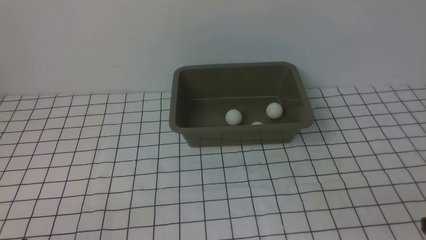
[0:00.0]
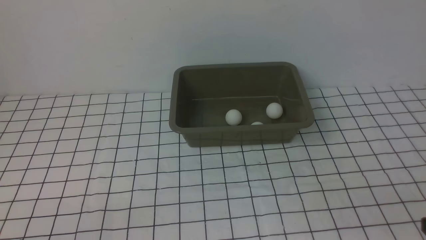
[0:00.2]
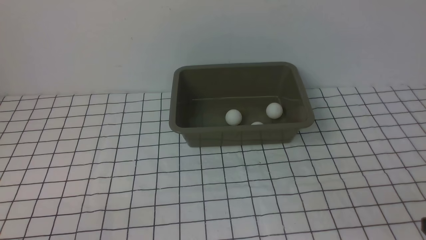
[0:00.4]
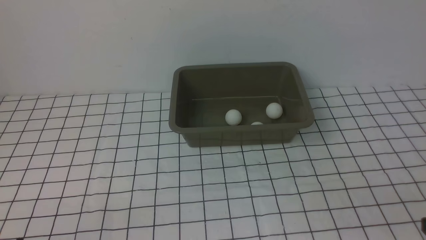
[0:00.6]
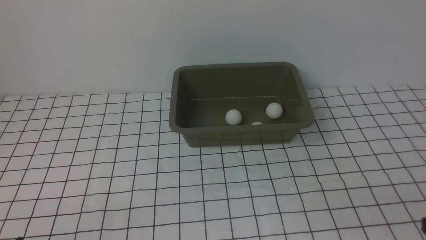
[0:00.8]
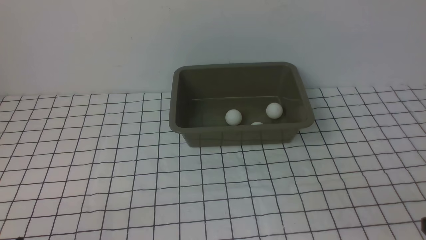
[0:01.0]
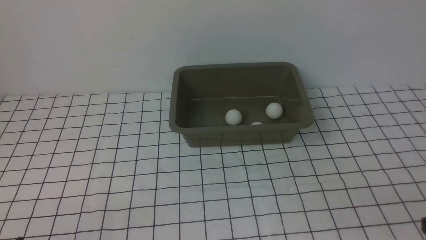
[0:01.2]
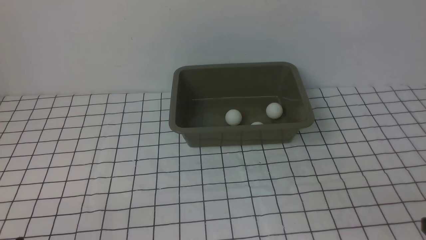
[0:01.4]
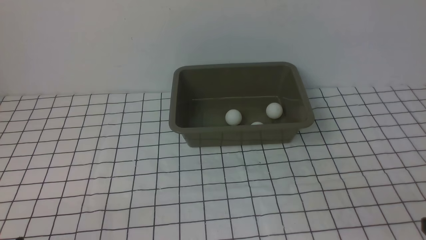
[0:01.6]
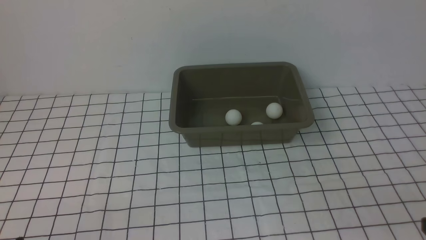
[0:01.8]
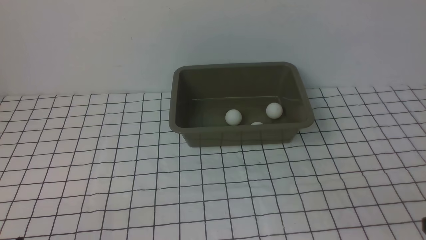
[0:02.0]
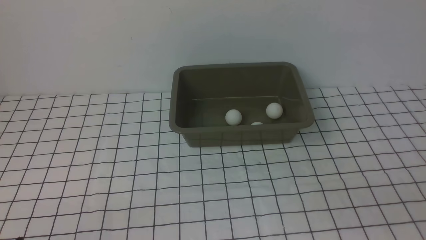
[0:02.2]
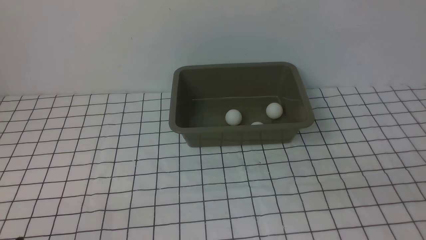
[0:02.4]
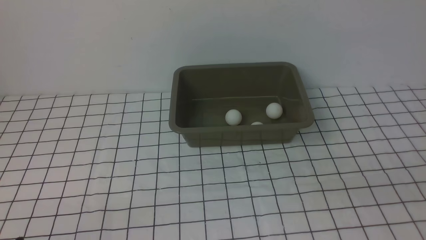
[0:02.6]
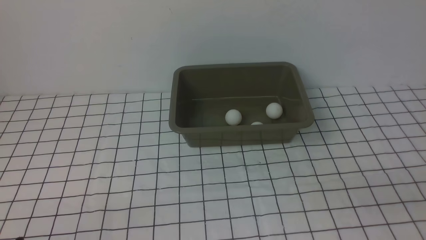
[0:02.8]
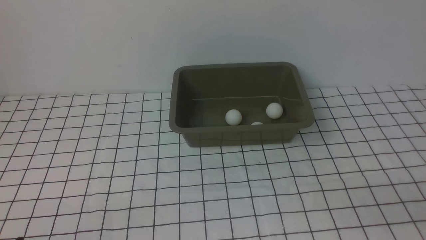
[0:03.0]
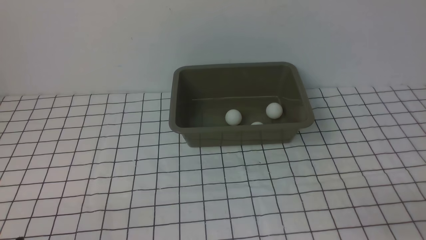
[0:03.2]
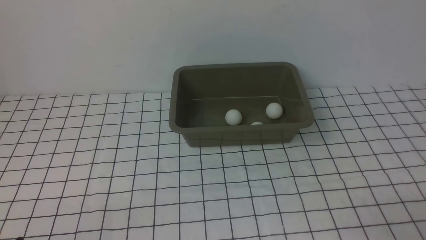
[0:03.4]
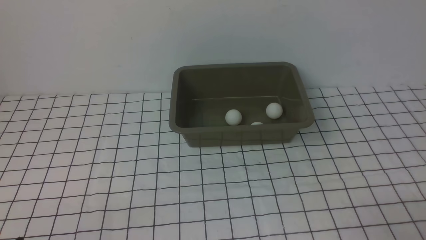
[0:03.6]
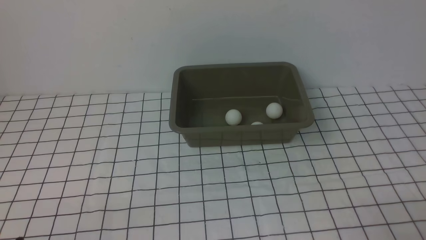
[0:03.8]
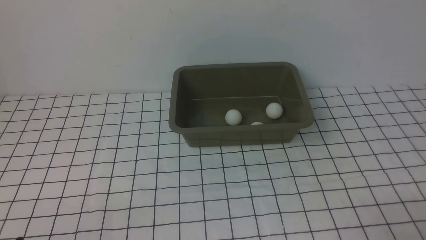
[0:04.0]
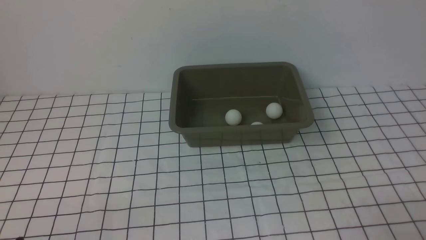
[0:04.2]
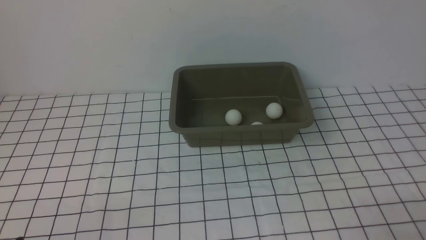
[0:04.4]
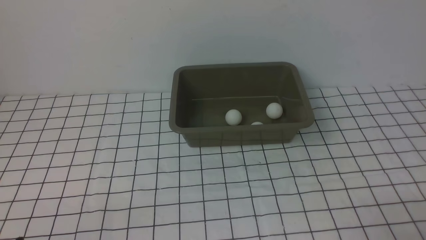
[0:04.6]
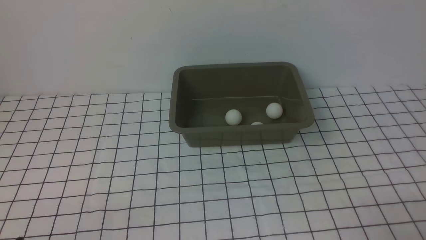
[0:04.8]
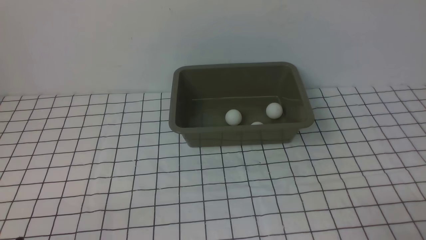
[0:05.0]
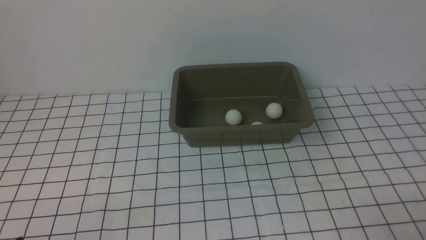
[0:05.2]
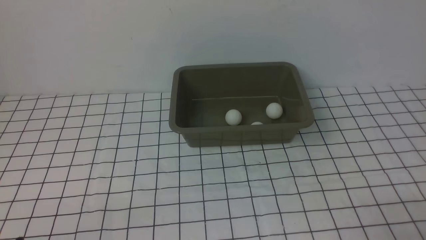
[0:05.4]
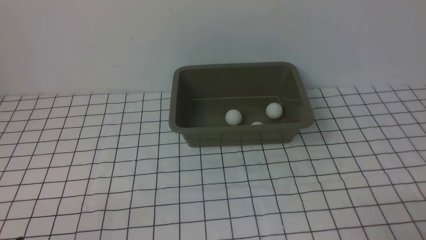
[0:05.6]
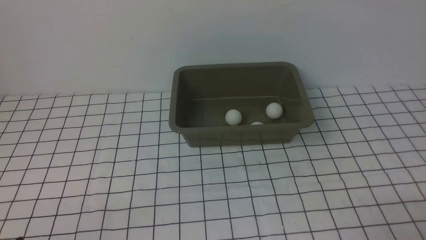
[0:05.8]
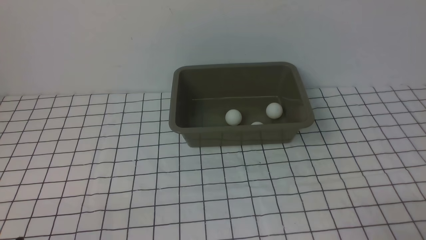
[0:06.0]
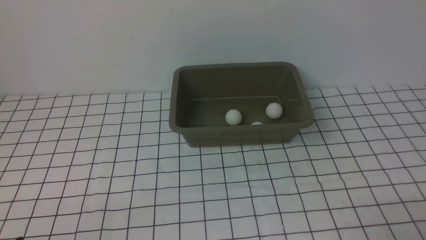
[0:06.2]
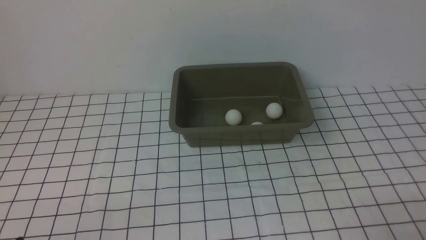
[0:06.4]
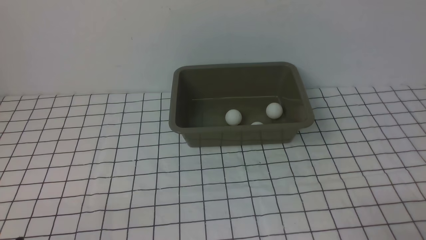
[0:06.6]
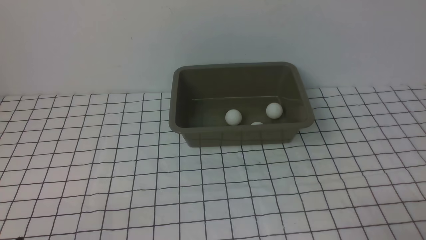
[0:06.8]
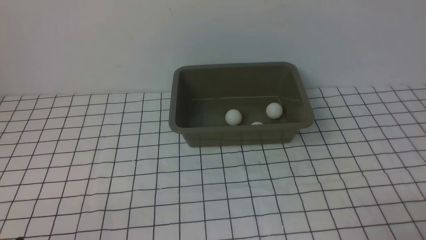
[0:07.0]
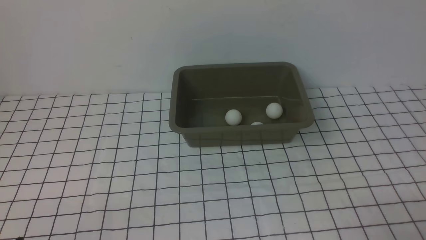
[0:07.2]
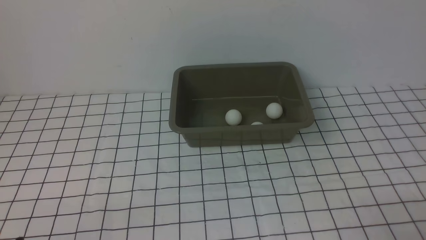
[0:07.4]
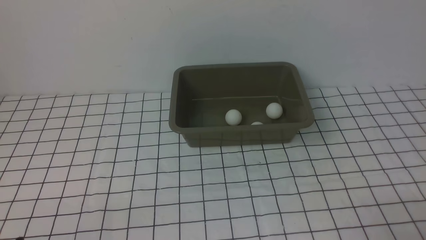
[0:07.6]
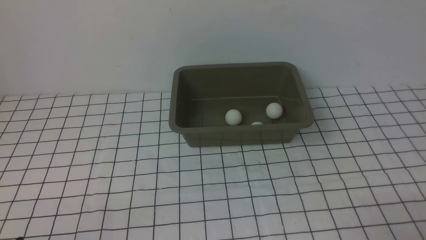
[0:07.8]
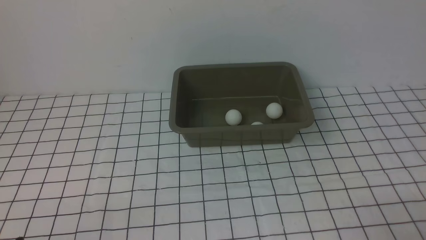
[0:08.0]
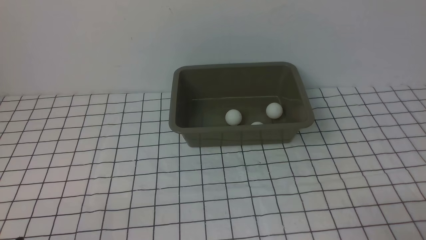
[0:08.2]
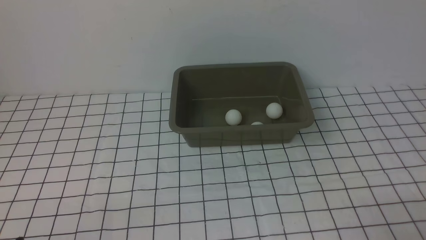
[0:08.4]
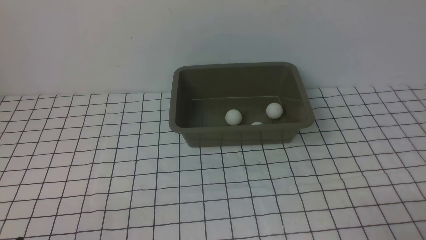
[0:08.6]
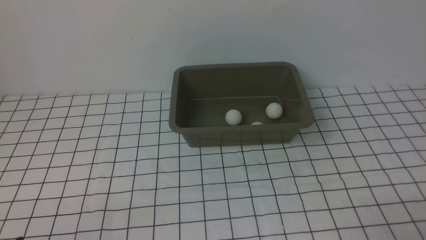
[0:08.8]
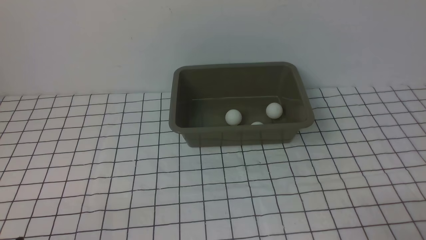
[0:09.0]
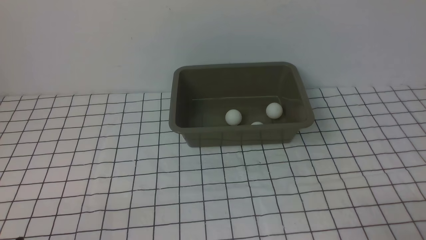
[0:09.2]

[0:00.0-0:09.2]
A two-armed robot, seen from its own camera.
0:00.0 to 0:01.6: Neither gripper changes place.
0:04.6 to 0:09.2: Both grippers stay about where they are.

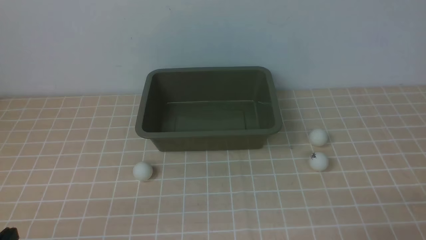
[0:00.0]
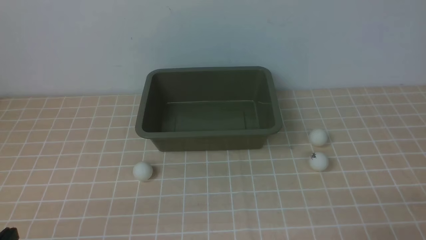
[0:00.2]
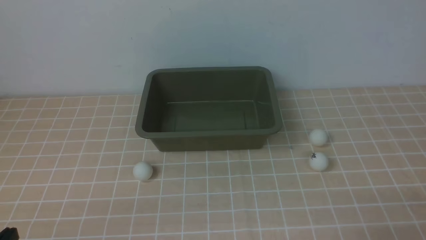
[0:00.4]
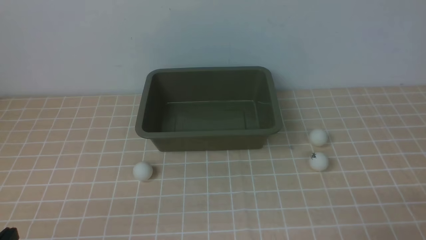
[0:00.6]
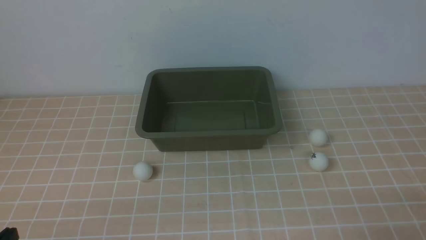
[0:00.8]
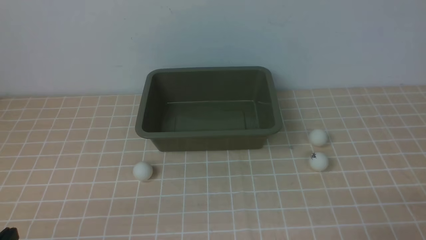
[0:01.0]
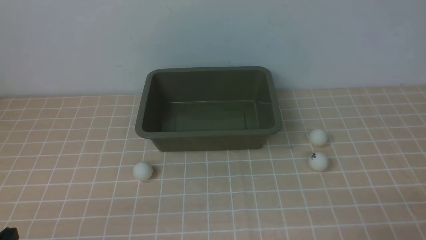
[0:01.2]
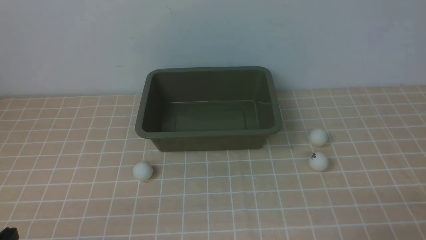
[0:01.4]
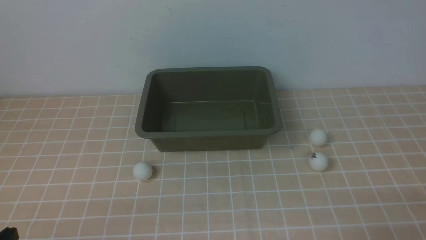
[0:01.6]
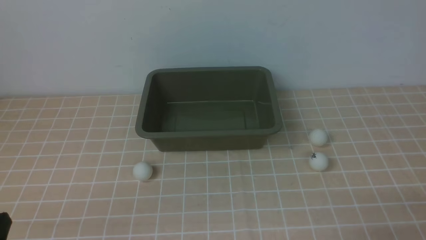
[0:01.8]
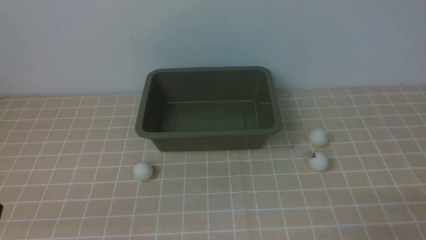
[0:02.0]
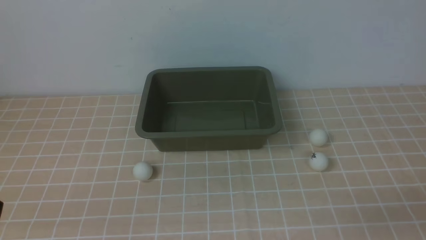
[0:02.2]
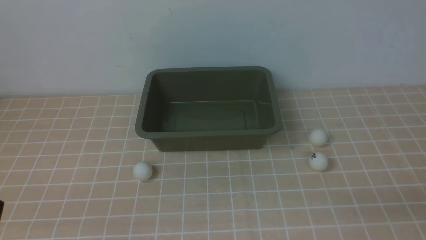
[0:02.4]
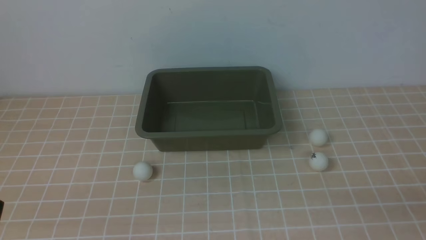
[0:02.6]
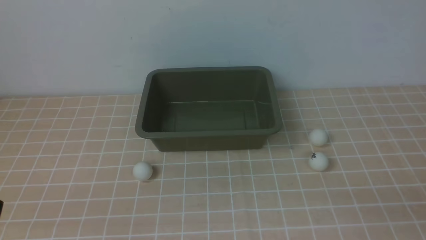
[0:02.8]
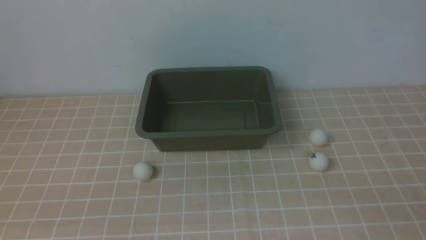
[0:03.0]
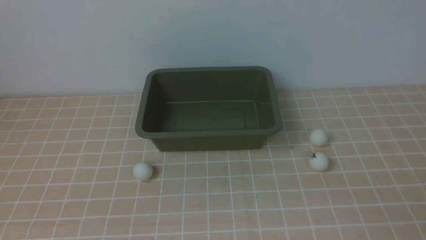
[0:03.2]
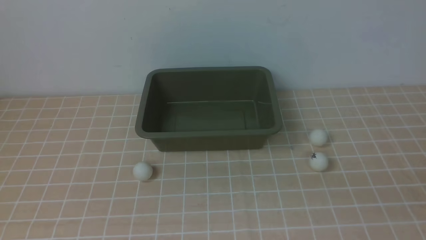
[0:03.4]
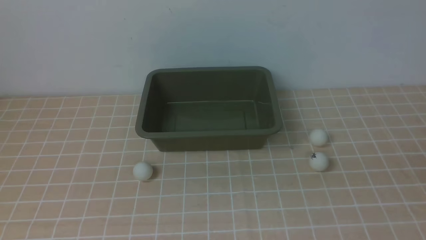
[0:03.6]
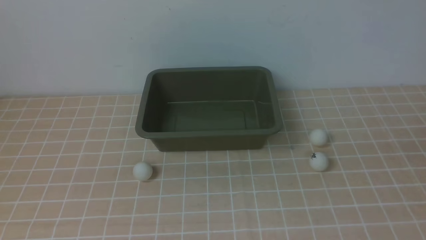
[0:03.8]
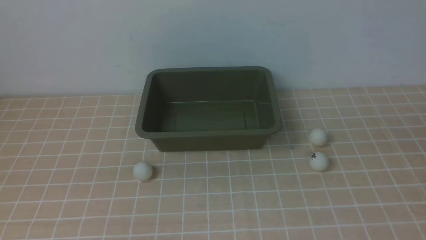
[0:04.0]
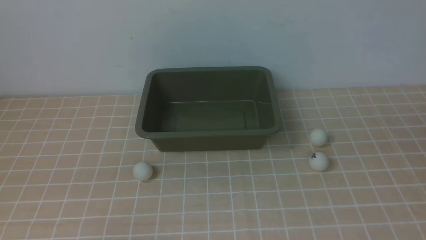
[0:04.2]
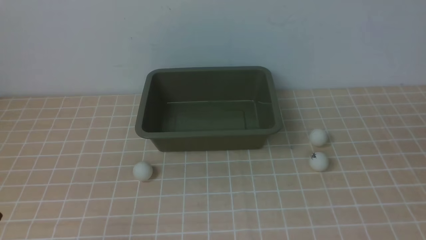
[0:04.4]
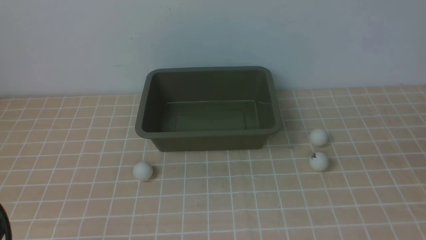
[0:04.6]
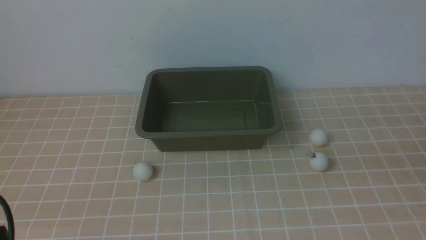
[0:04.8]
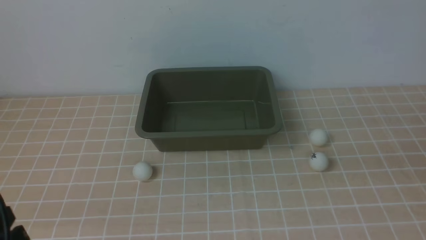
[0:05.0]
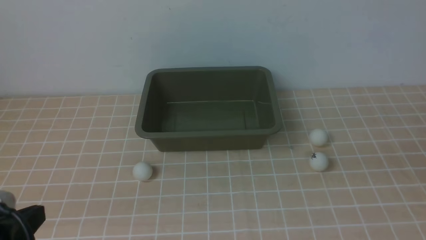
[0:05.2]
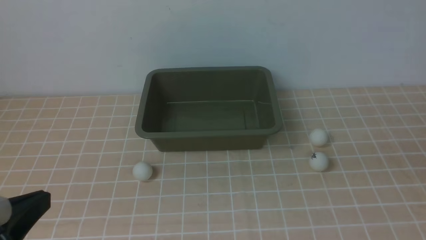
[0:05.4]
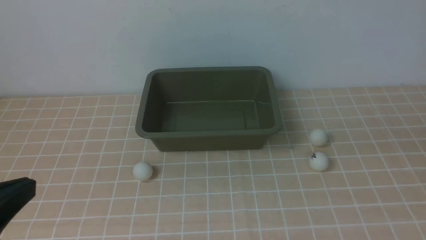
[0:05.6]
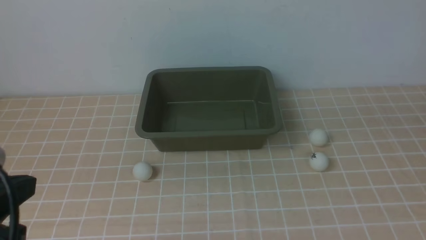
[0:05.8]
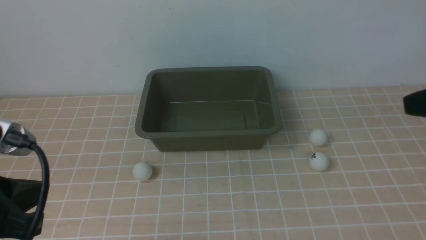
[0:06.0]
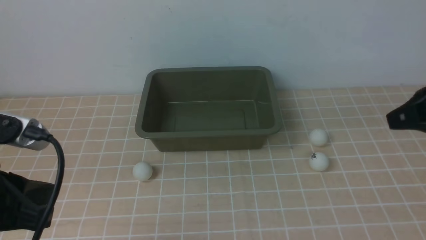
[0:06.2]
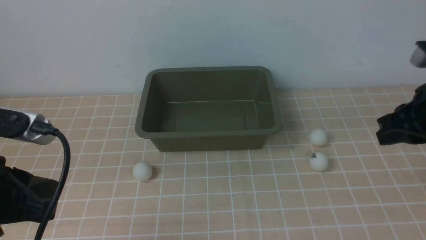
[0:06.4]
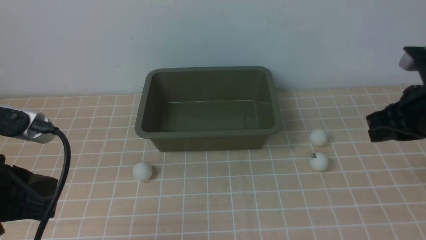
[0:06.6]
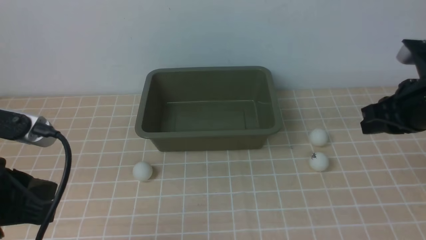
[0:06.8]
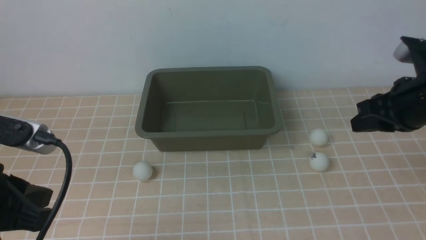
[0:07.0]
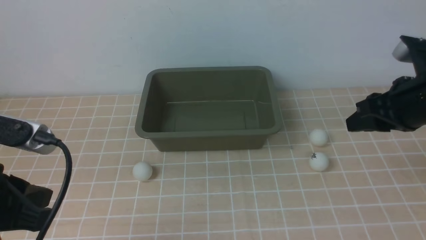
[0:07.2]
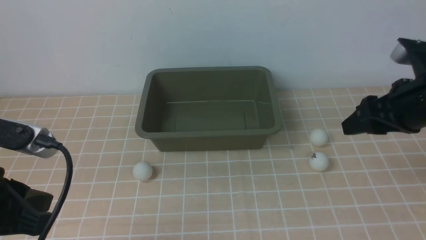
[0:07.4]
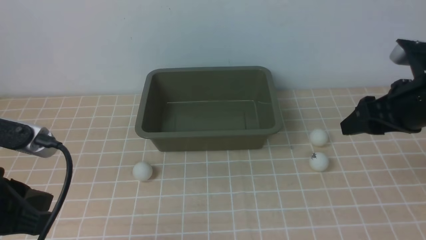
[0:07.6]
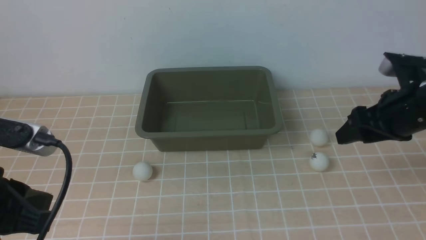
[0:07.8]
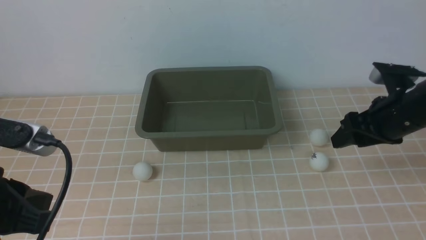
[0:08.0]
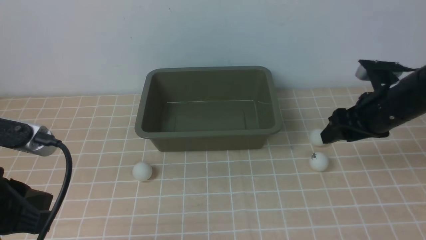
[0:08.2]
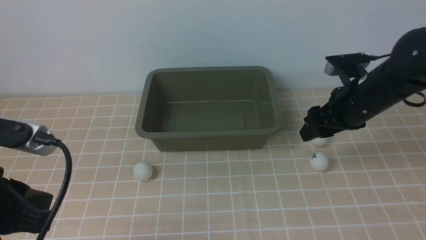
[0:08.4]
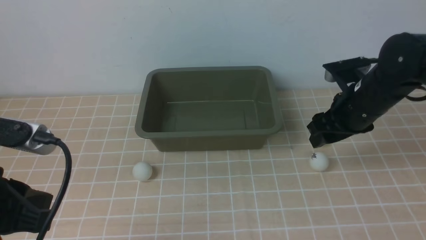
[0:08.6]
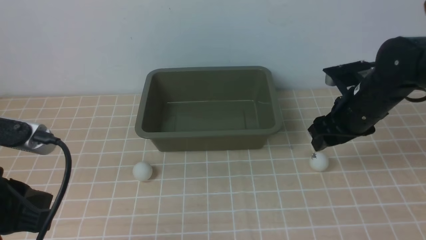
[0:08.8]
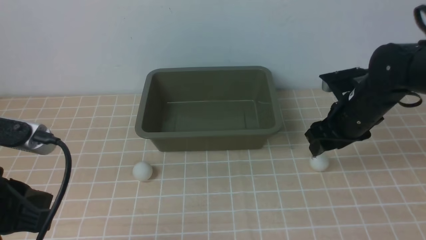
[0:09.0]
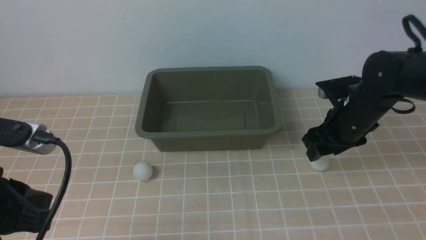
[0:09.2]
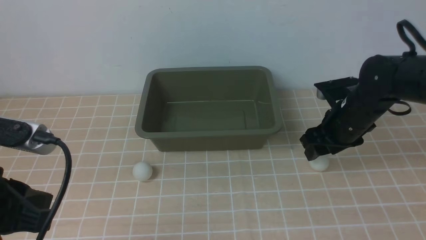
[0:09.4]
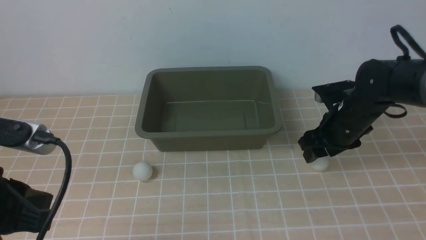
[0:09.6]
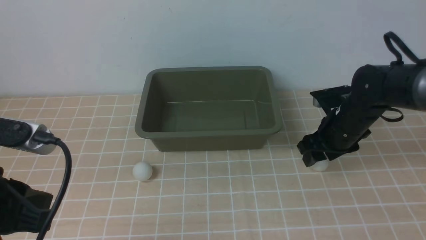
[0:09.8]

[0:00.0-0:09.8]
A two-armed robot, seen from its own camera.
0:05.6 to 0:07.0: The right gripper goes approximately 15 cm forward, while the left gripper heads forward, covering approximately 5 cm.
0:07.0 to 0:08.4: The right gripper is displaced forward and downward by roughly 10 cm, and opens up.
0:08.4 to 0:09.8: The right gripper travels downward by approximately 5 cm.
